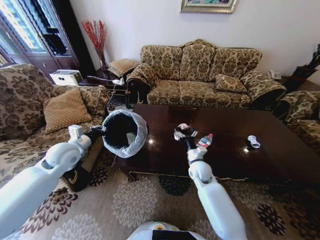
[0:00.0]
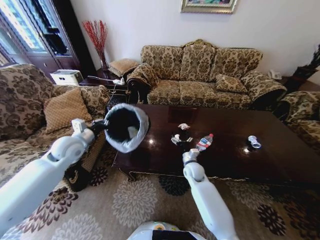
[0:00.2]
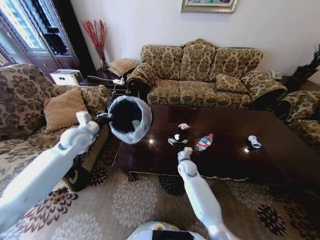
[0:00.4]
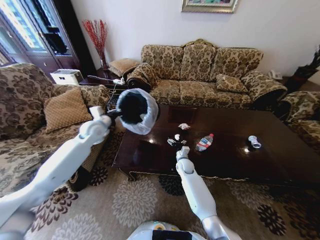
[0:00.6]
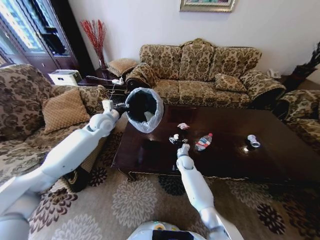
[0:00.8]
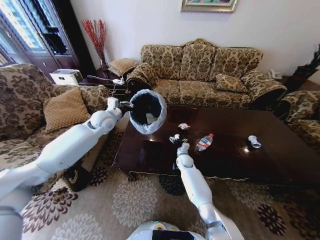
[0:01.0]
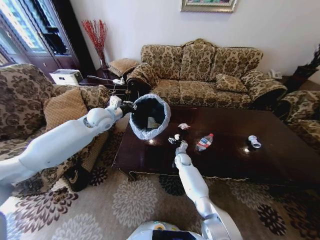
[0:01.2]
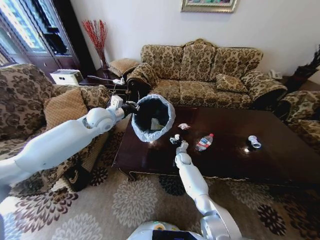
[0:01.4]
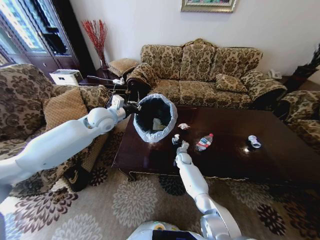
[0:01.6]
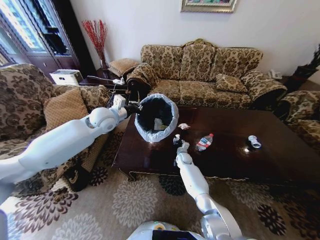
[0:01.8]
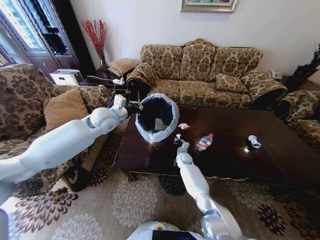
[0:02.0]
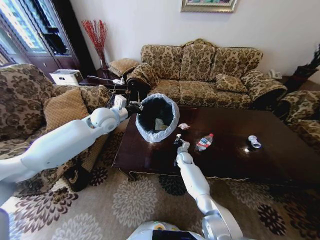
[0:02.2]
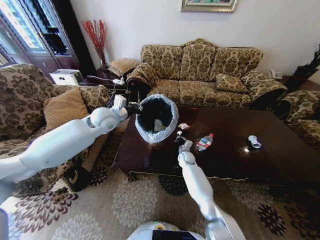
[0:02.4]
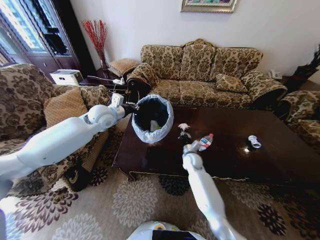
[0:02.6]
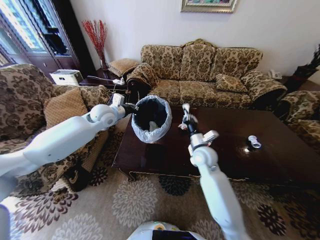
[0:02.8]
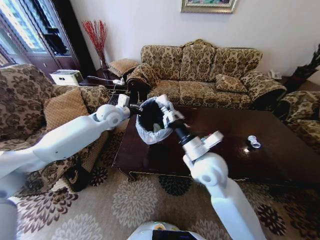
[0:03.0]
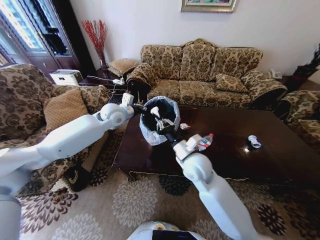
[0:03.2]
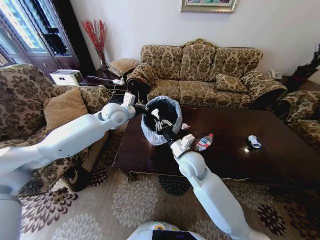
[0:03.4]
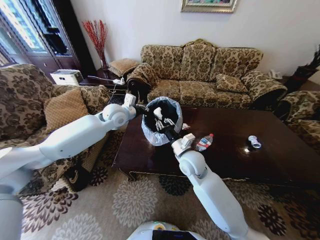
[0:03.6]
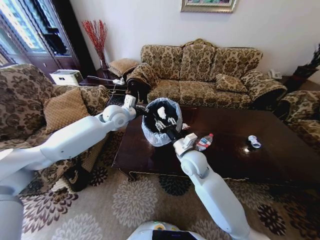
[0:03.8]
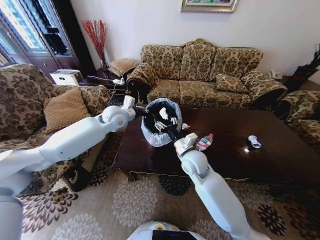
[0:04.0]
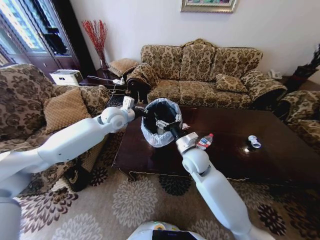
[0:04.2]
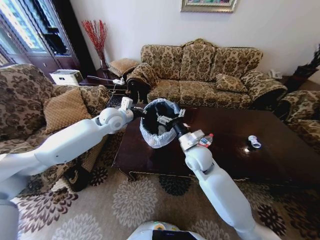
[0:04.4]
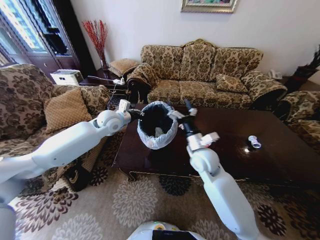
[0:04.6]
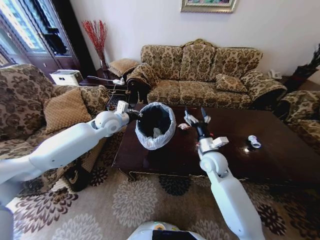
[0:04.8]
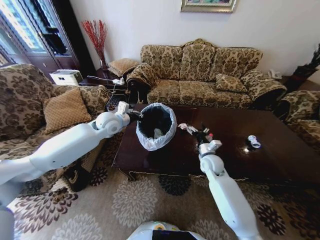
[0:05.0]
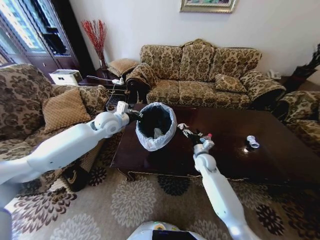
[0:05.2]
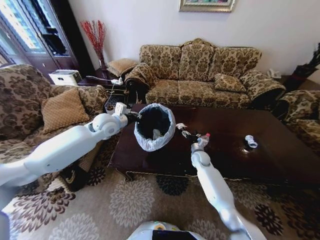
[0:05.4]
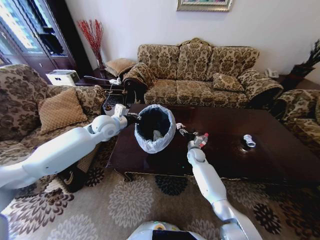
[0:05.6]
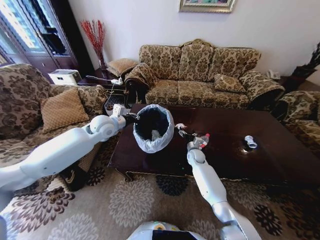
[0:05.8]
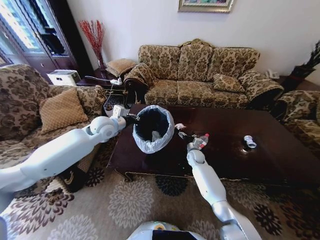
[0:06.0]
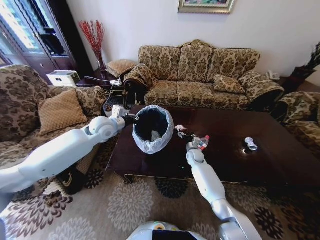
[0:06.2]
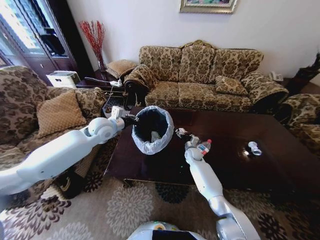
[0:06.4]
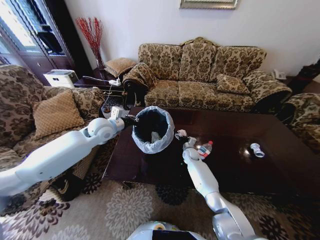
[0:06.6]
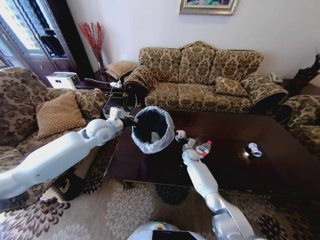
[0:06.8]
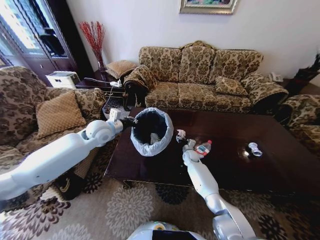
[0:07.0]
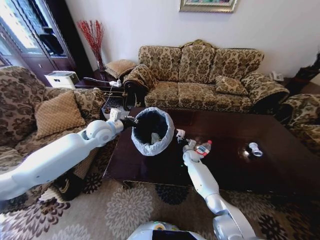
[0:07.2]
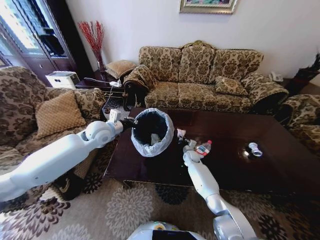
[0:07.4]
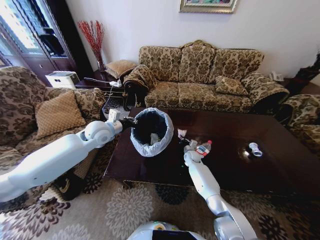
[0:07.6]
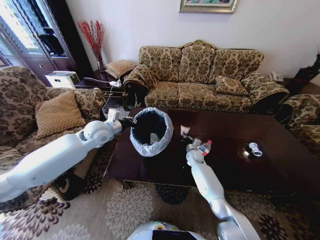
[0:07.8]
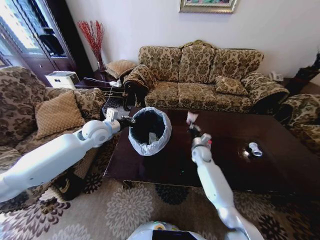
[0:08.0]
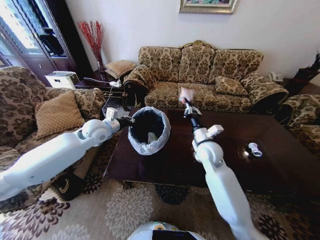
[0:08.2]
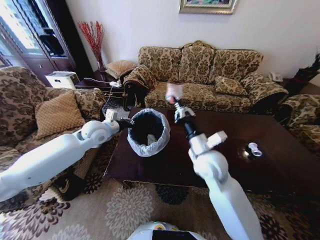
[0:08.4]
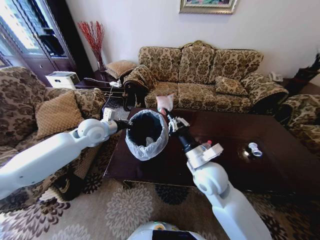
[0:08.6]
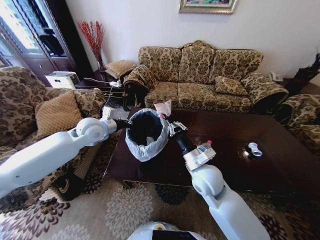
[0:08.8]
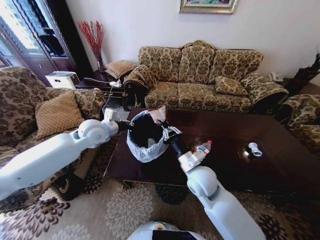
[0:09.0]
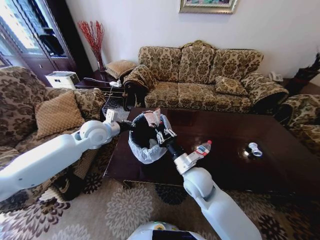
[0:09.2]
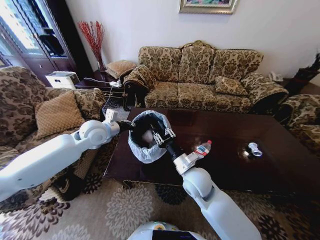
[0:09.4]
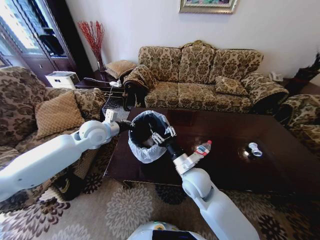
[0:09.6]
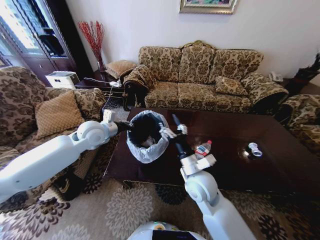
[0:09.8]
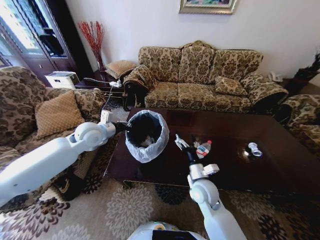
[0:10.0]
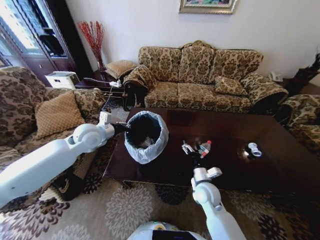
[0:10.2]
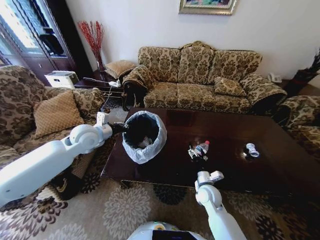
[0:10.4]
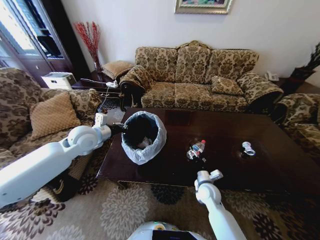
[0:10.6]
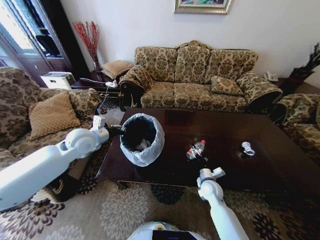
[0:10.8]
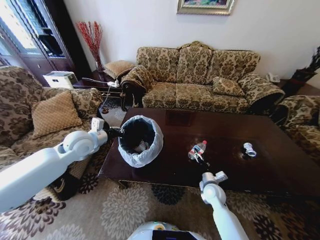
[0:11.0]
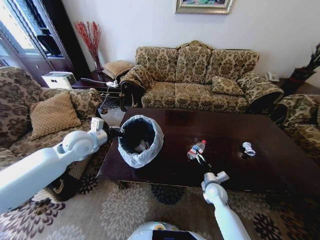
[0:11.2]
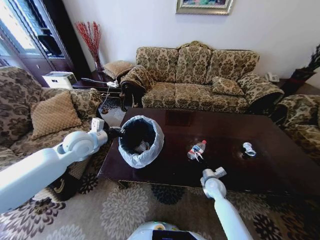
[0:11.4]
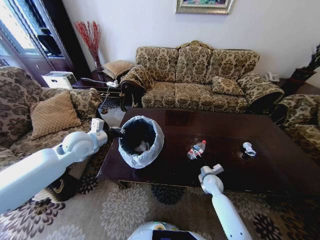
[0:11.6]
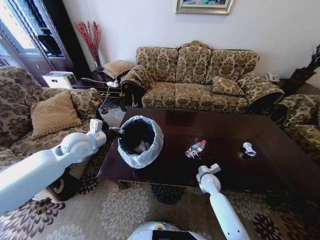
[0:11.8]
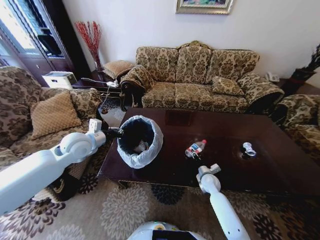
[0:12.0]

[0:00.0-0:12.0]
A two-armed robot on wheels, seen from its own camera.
Task of the whole recording: Move to the front of the table and place the trash on the table into the trash bin.
0:00.0 to 0:01.6: The left gripper goes about 20 cm to the right, forward and upward, while the right gripper goes about 20 cm forward and downward.
0:01.6 to 0:03.0: The right gripper heads upward and backward, covering about 40 cm, and closes its fingers.
0:03.0 to 0:04.4: The right gripper goes some 5 cm forward, and opens its fingers.
0:04.4 to 0:06.0: The right gripper shifts about 25 cm downward and forward.
0:06.0 to 0:07.6: The right gripper closes its fingers.
0:07.6 to 0:09.0: The right gripper shifts approximately 30 cm backward and upward.
0:09.0 to 0:10.4: The right gripper goes roughly 20 cm downward and to the right, and opens.
0:10.4 to 0:12.0: The right gripper is displaced forward, downward and to the right by roughly 10 cm, and closes up.

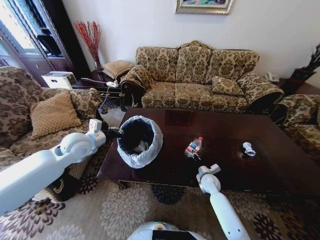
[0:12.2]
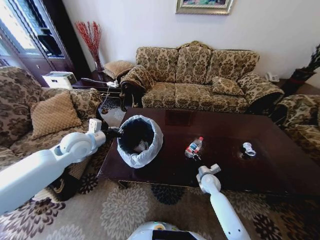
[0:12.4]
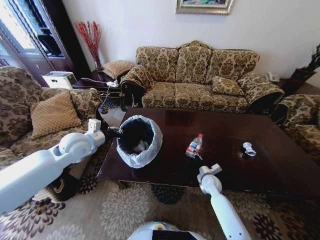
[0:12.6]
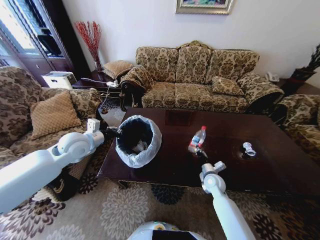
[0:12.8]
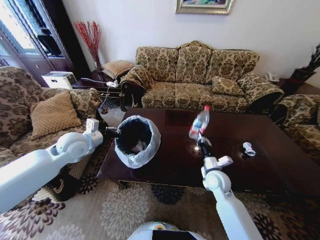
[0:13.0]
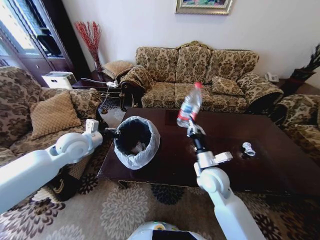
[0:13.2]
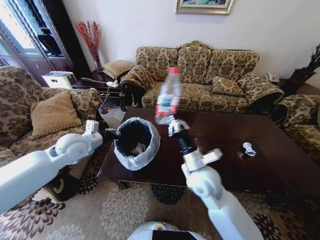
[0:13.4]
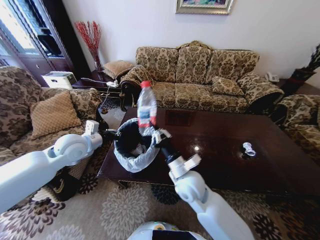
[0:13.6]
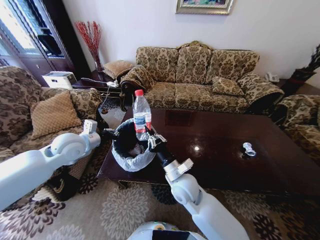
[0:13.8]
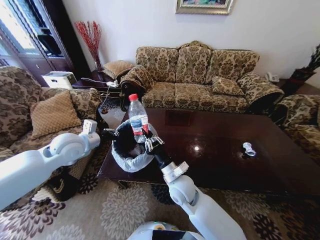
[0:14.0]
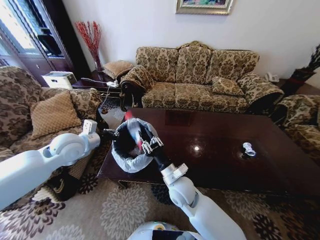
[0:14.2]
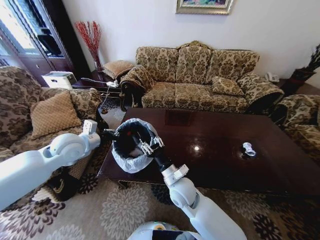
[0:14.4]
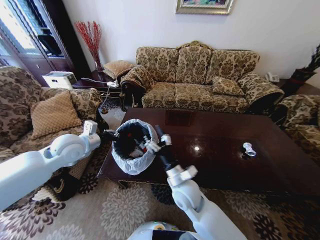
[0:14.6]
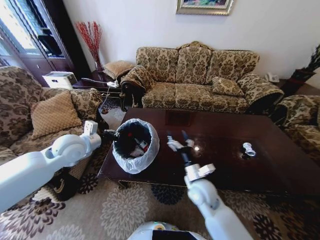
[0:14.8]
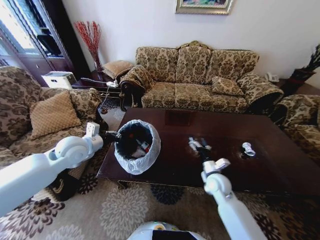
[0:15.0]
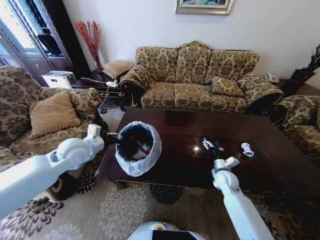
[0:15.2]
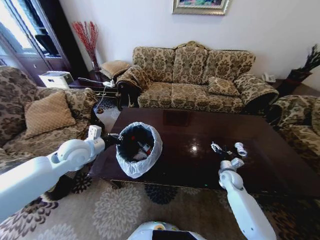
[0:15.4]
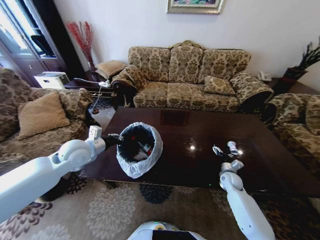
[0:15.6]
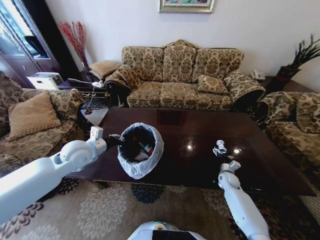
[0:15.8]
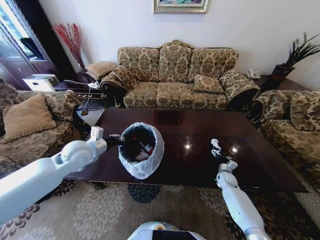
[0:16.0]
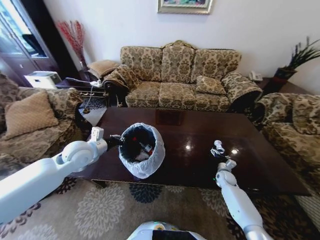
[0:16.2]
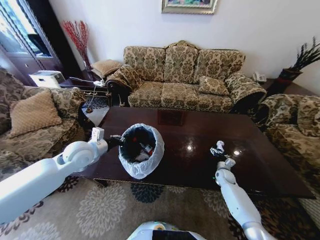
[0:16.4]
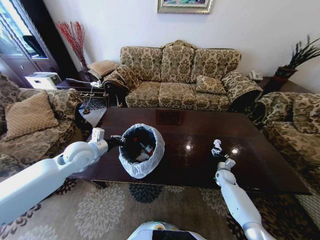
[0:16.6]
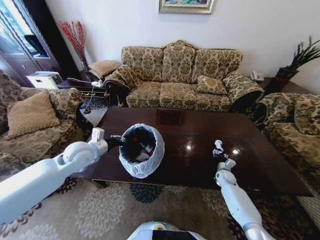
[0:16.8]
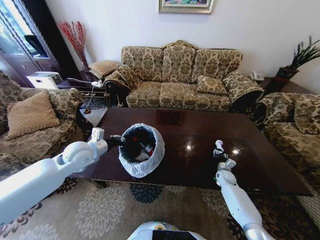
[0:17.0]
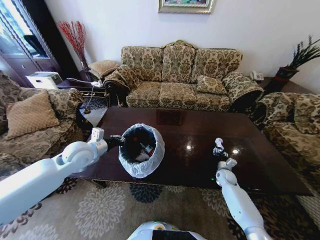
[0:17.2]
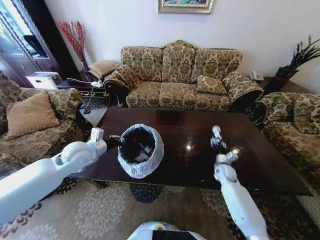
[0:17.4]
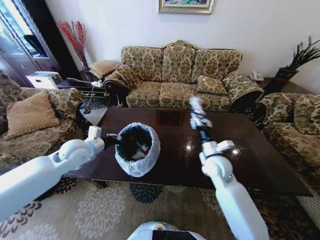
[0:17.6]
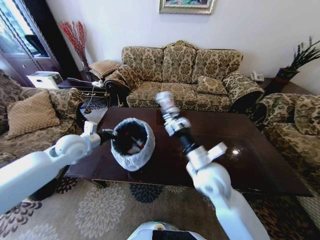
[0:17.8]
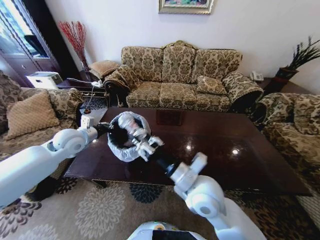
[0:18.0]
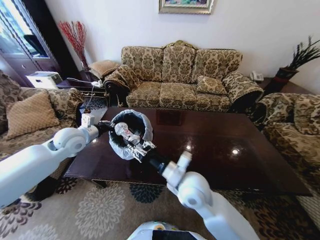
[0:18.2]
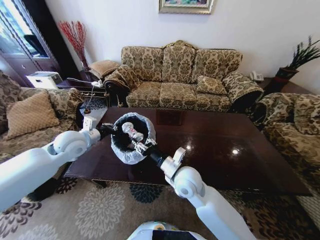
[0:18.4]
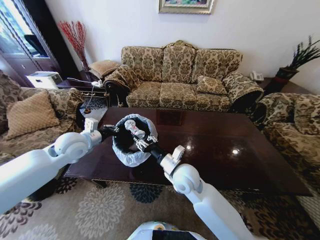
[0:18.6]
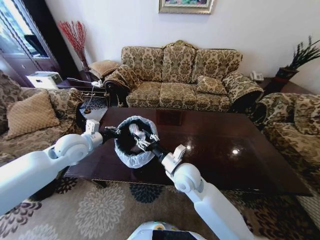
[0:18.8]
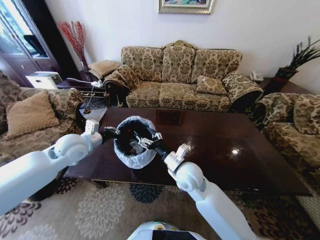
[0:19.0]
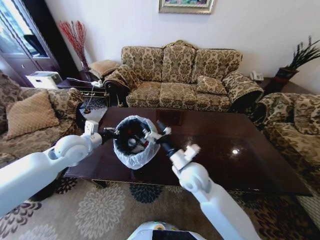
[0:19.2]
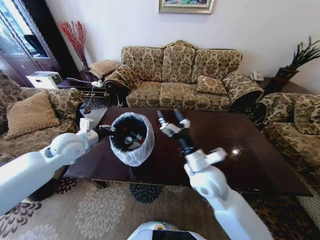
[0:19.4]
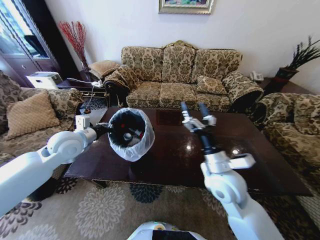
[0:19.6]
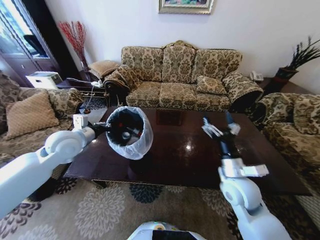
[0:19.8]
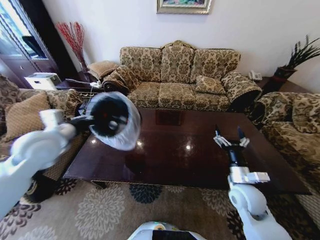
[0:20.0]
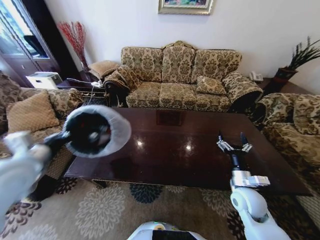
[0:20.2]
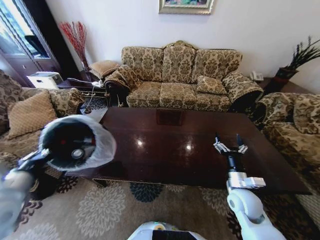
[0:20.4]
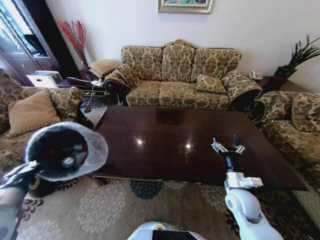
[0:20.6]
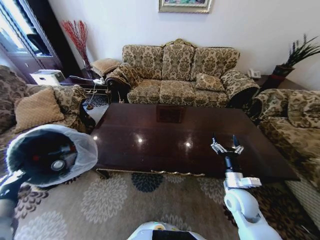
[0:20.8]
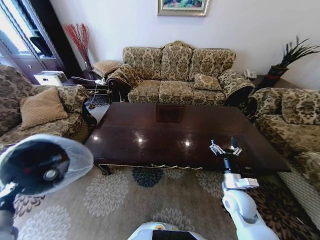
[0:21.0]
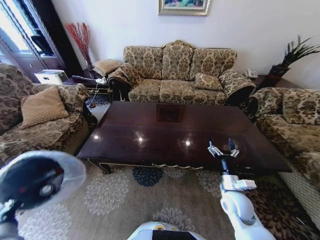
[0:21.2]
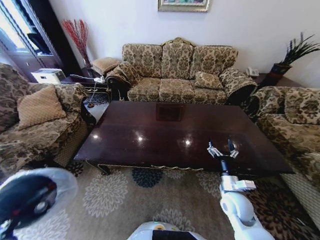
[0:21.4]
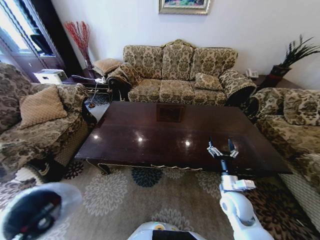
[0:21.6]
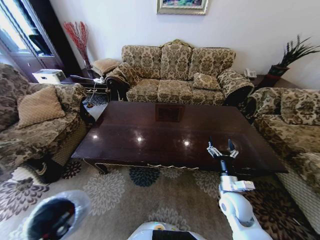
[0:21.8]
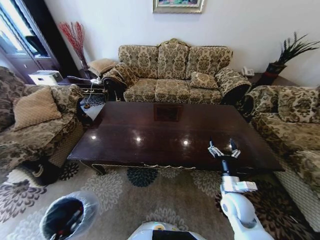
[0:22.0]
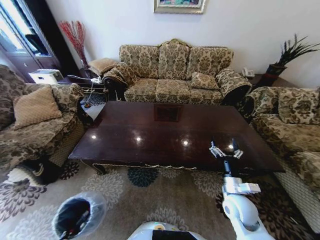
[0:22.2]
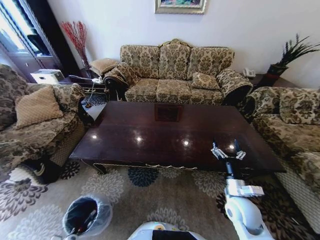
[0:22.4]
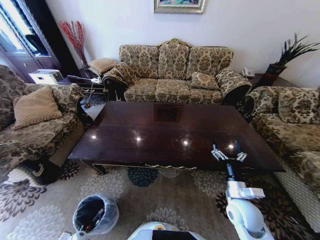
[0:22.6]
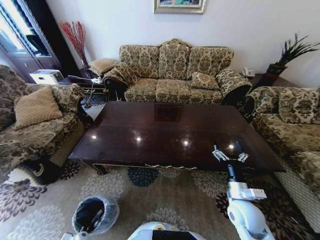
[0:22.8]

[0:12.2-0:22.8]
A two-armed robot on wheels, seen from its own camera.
Task of the whole recording: Move to the front of the table and place the trash on the table into the trash bin.
0:12.2 to 0:13.8: The right gripper moves to the left, upward and backward, some 30 cm.
0:13.8 to 0:15.2: The right gripper moves to the right and downward, approximately 25 cm, and opens up.
0:15.2 to 0:16.8: The right gripper is displaced downward, to the right and forward by about 15 cm, and closes.
0:16.8 to 0:18.2: The right gripper is displaced to the left, upward and backward by about 40 cm; the left gripper moves about 5 cm.
0:18.2 to 0:19.8: The right gripper travels to the right by approximately 15 cm, and opens.
0:19.8 to 0:21.2: The right gripper heads downward, covering approximately 10 cm. Meanwhile the left gripper goes about 30 cm backward and downward.
0:21.2 to 0:22.8: The left gripper heads downward, covering roughly 40 cm.
